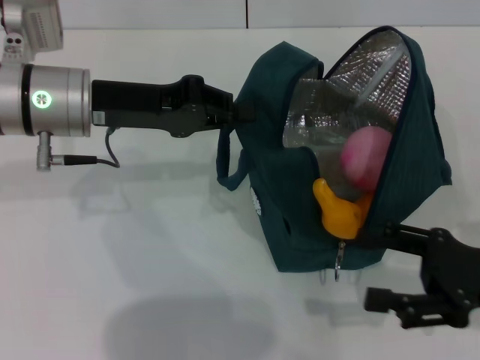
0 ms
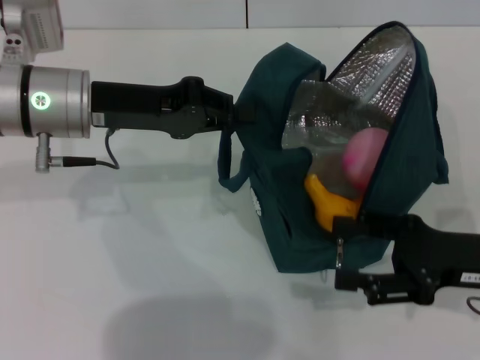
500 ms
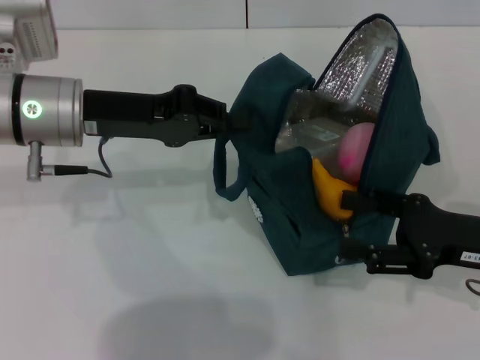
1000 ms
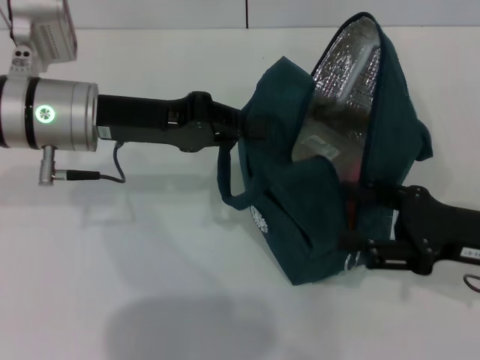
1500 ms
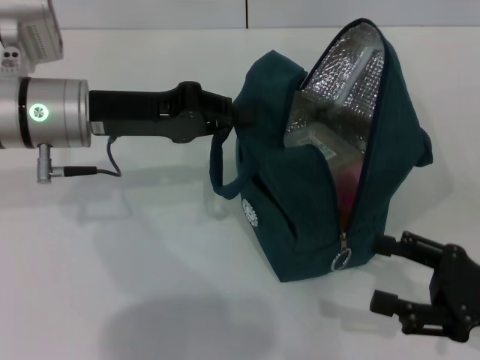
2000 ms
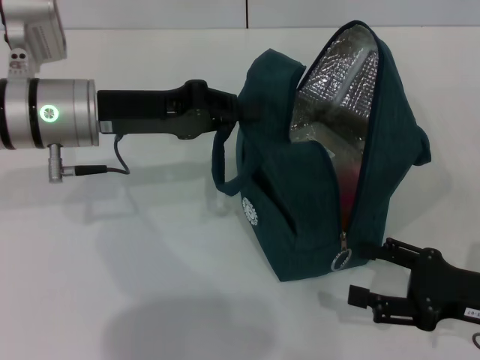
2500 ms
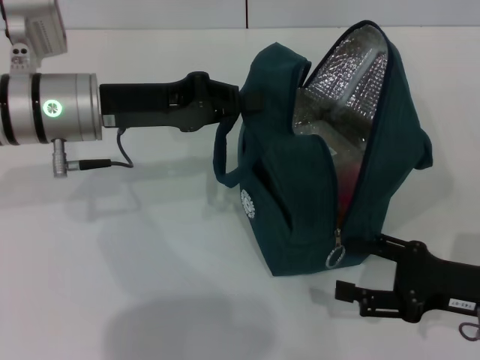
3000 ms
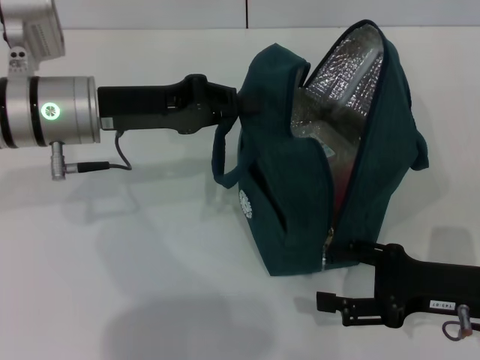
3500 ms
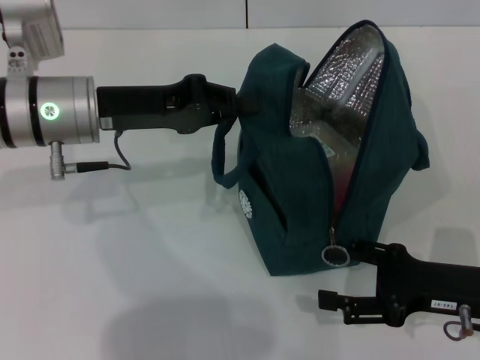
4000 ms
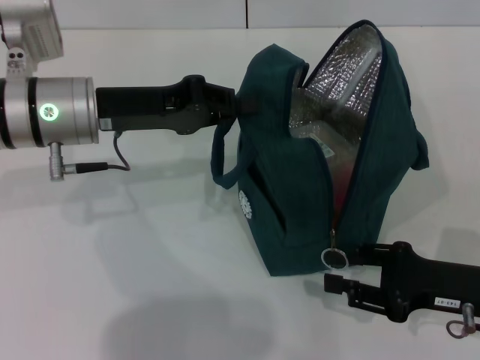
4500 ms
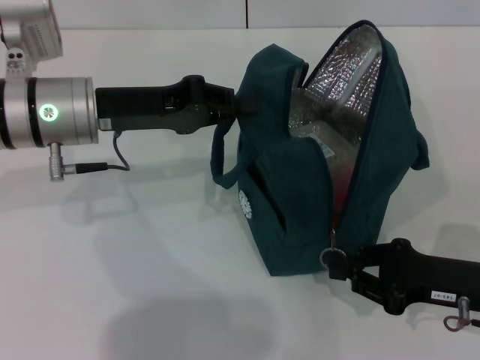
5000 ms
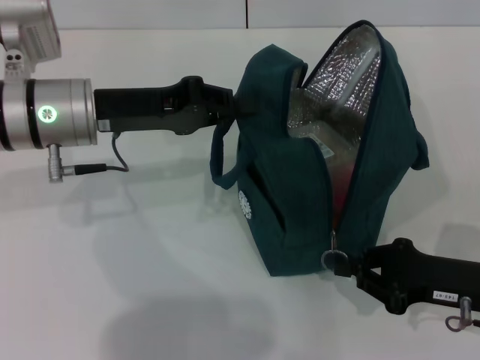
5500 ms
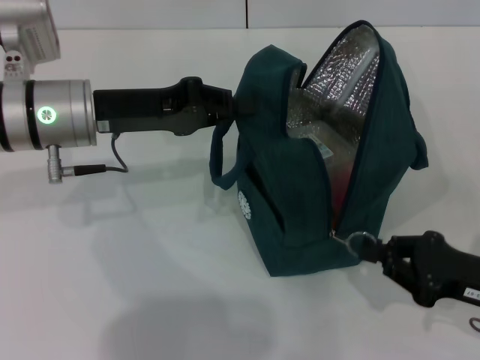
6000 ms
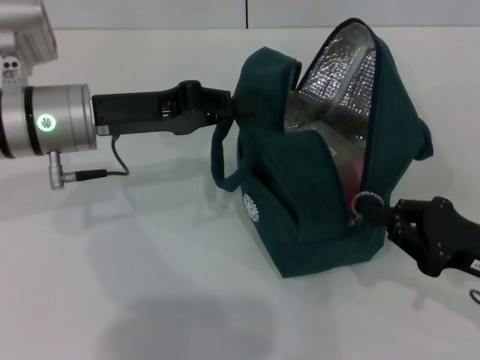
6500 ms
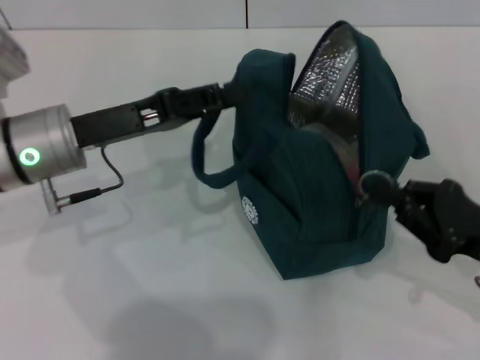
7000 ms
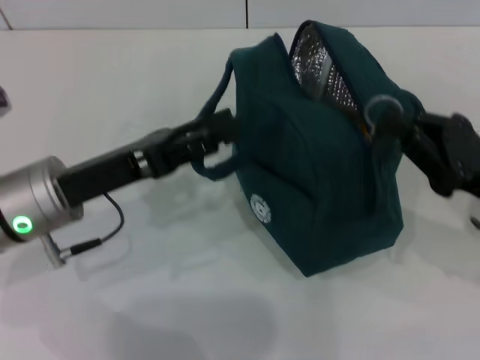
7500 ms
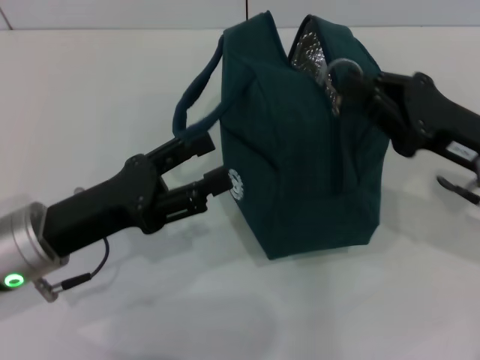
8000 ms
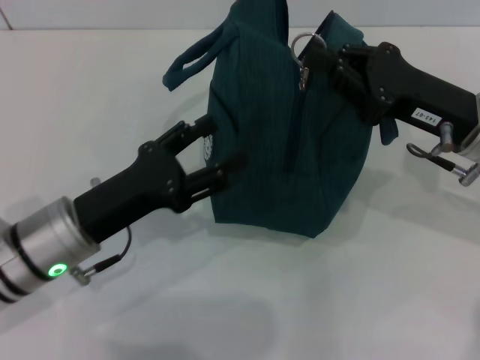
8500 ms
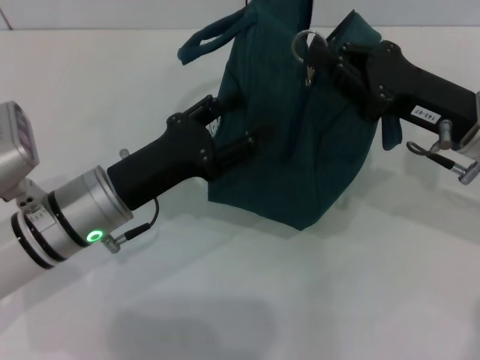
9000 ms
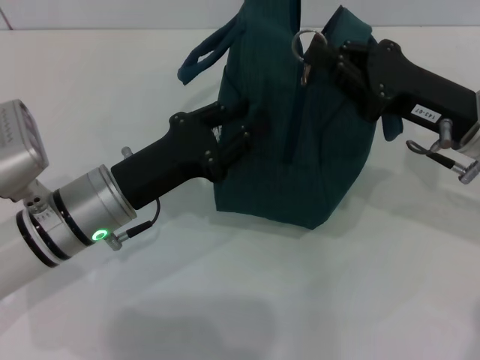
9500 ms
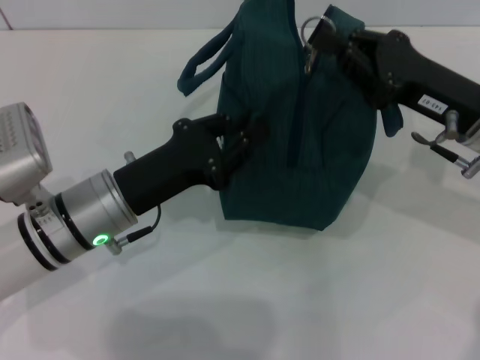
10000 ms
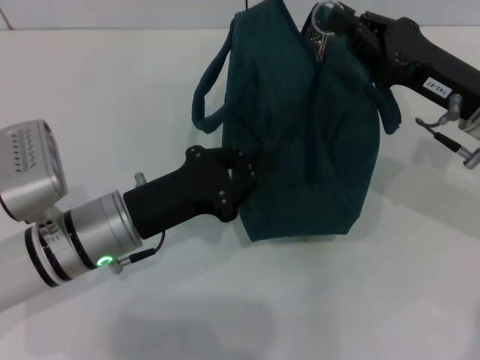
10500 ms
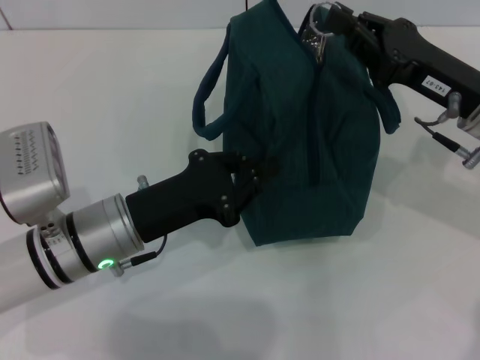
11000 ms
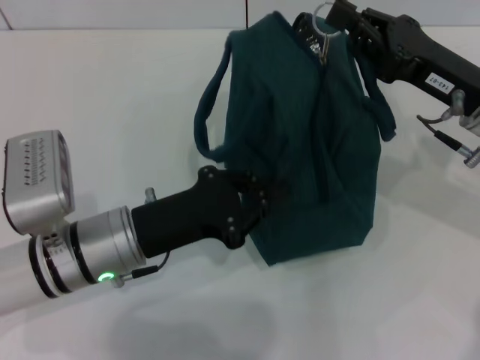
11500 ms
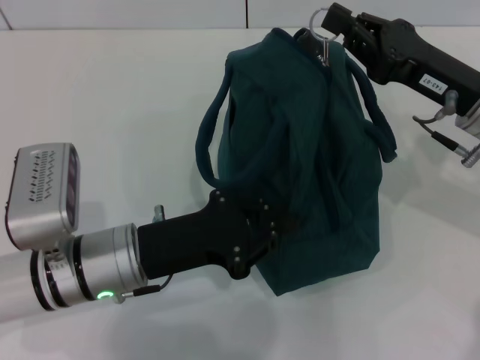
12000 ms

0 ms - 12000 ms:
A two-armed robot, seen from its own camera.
Step, 0 ms - 7500 ms: Hold the lunch bag with your left hand.
2000 ms - 4000 ms: The right gripper ends up some 5 cm from where it was.
4000 ms - 6000 ms: The right gripper closes its fingers.
6000 ms - 8000 ms: The right gripper moves upward and forward, about 10 cm. Meanwhile the left gripper goes roughly 10 cm backward and downward, and opens its fingers.
8000 ms - 10000 ms: The left gripper travels to the right by approximately 5 cm, and closes.

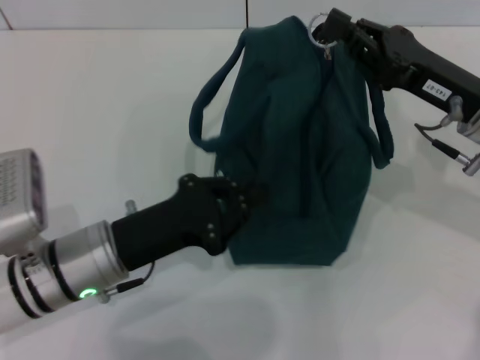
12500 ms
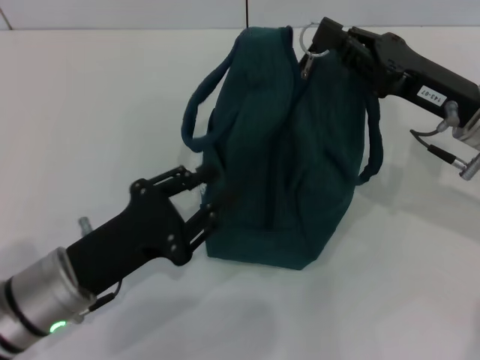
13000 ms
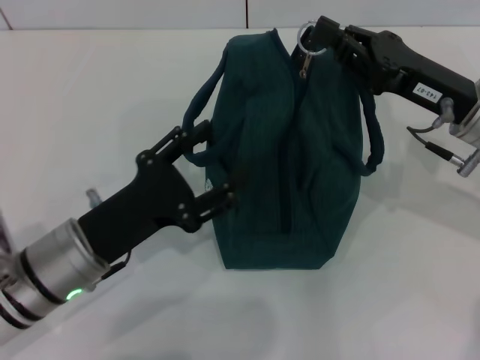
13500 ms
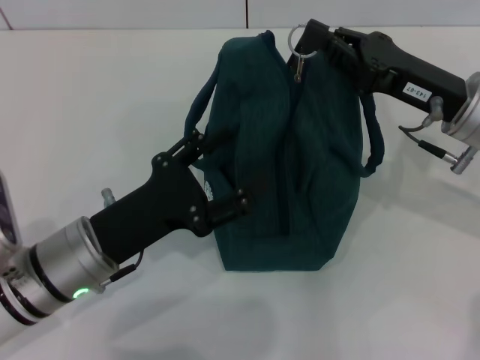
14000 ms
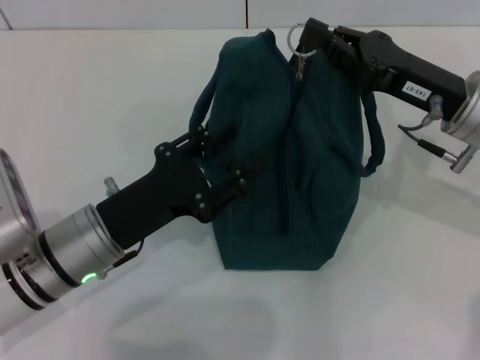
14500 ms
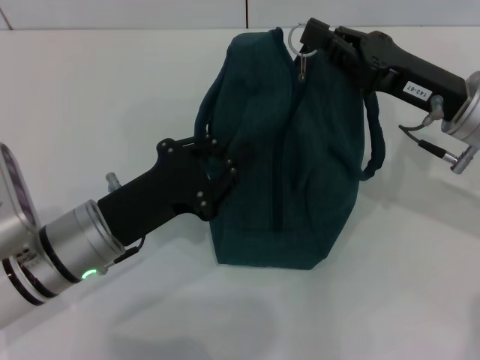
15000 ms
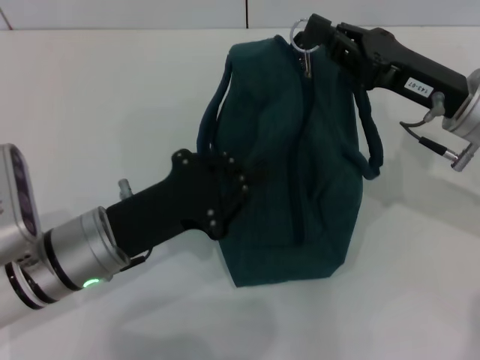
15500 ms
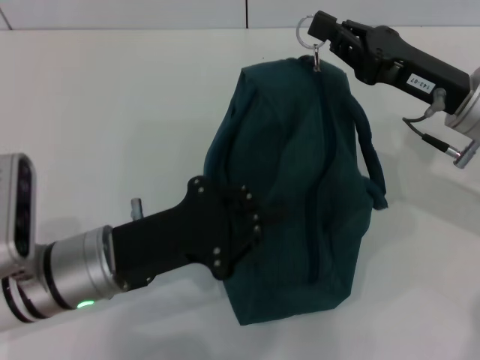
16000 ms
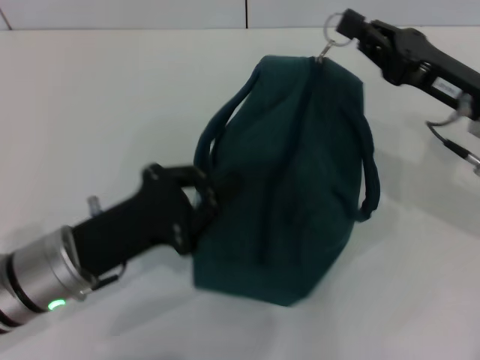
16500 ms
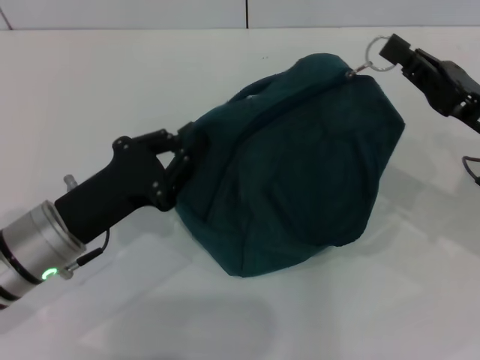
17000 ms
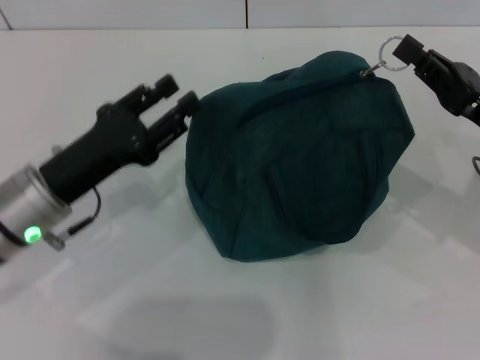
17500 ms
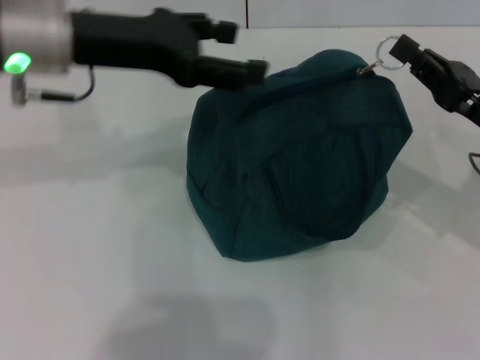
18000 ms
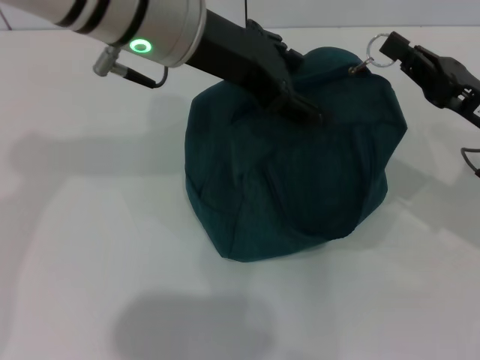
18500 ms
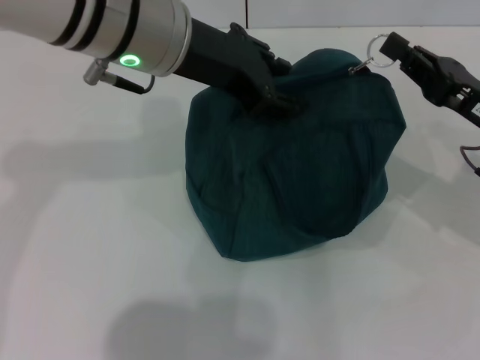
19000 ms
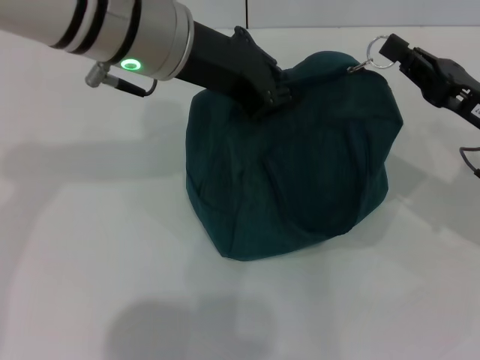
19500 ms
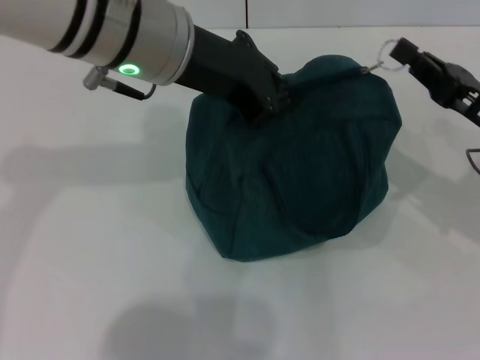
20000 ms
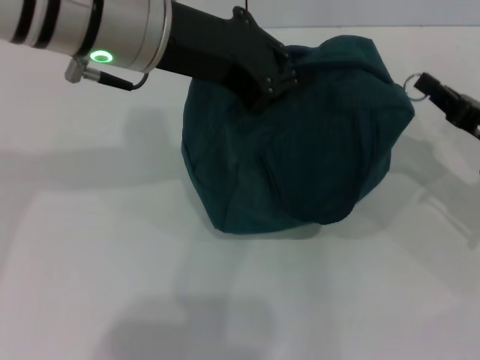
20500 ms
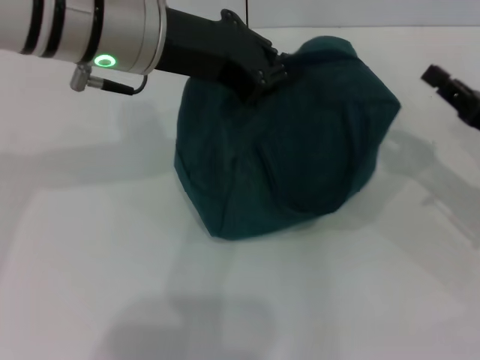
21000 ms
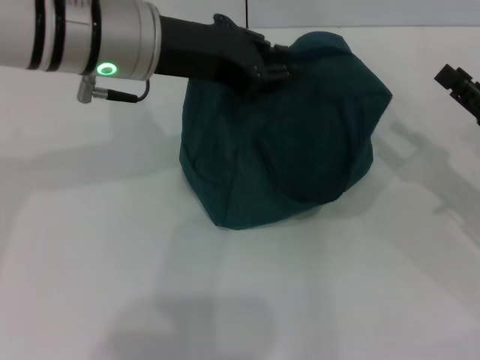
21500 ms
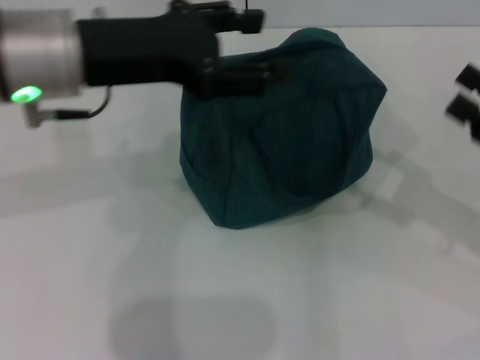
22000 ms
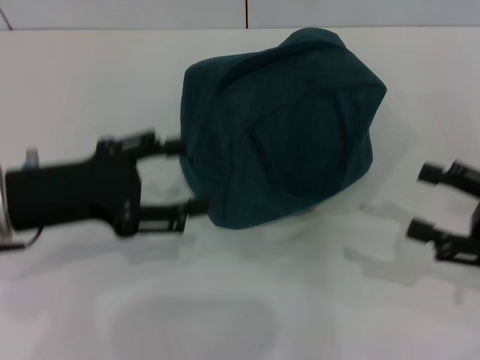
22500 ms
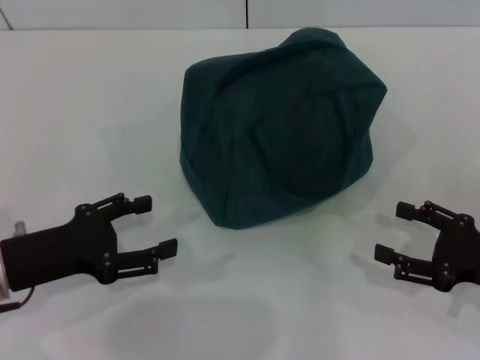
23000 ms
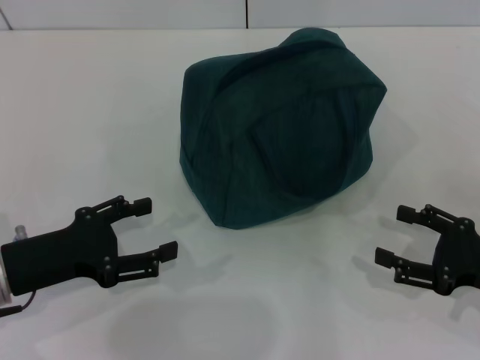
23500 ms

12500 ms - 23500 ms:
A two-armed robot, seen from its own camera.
Step, 12500 ms - 21000 ms: Zip up the lunch bag with your right hand.
Step, 21500 ms - 22000 ms: Hold the lunch bag with your left hand.
12500 ms - 14500 ms: The left gripper opens up.
14500 ms - 16000 ms: The left gripper closes its fingers.
16000 ms - 18000 ms: The left gripper shifts about 20 cm upward and forward, and opens its fingers, while the right gripper is displaced to the right by about 5 cm.
18000 ms - 20000 ms: The left gripper heads to the right, covering some 10 cm, and closes up.
20000 ms - 21500 ms: The right gripper ends up approximately 5 cm from where it was, and opens its fingers.
21500 ms - 23500 ms: The right gripper heads backward, covering roughly 5 cm, and opens up. The left gripper goes about 25 cm downward, to the left and backward, and opens up.
